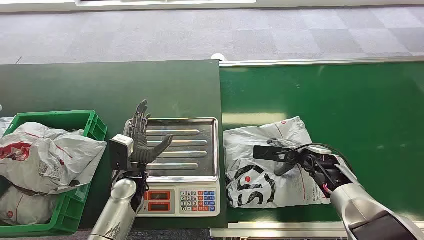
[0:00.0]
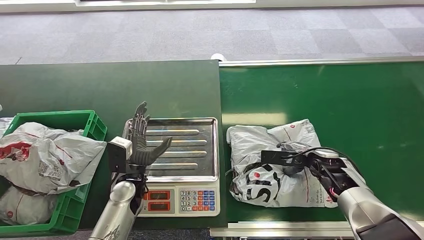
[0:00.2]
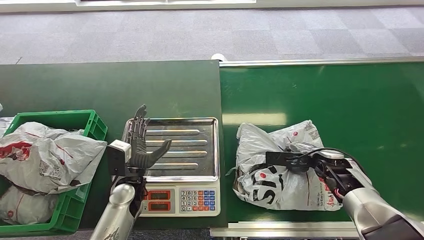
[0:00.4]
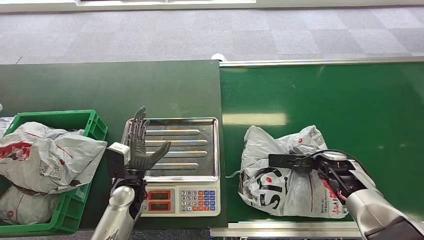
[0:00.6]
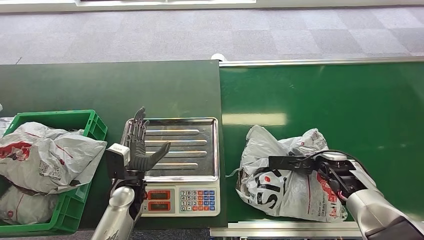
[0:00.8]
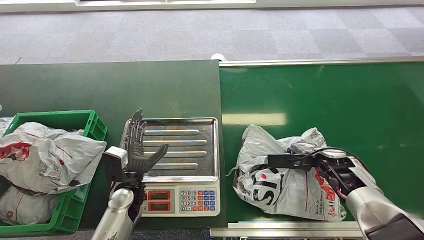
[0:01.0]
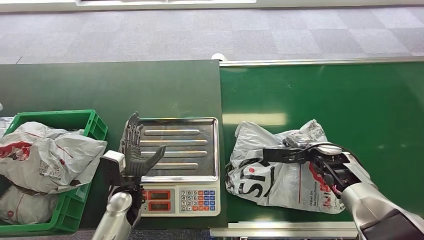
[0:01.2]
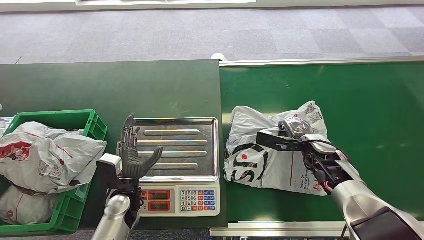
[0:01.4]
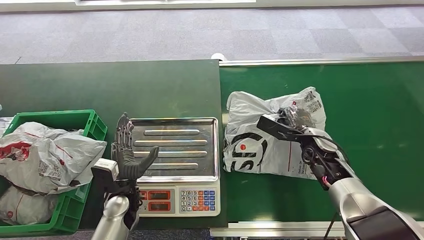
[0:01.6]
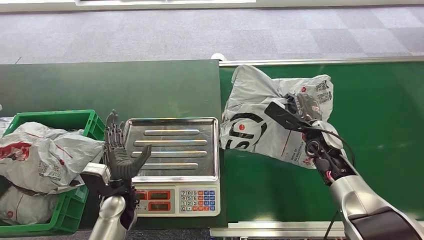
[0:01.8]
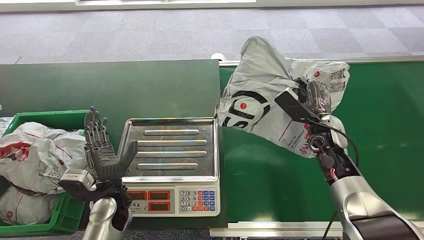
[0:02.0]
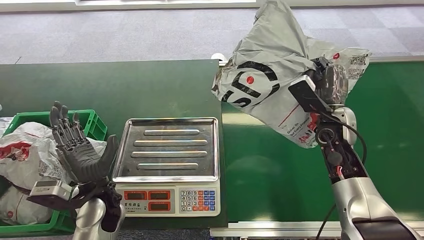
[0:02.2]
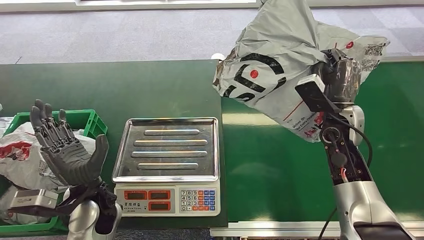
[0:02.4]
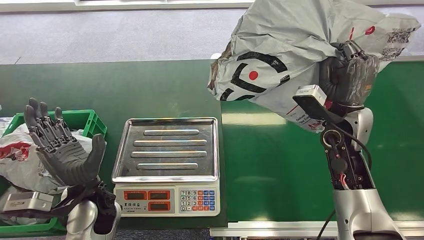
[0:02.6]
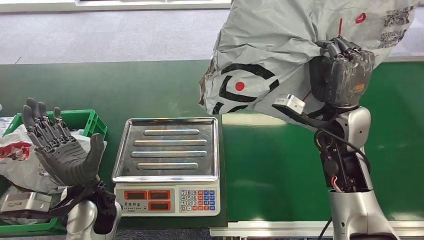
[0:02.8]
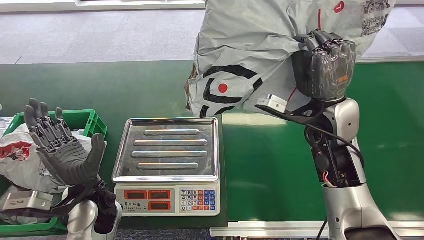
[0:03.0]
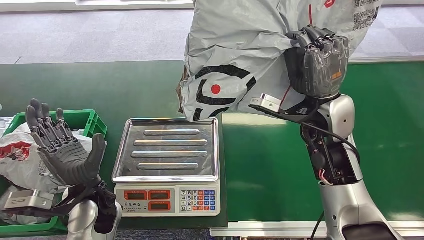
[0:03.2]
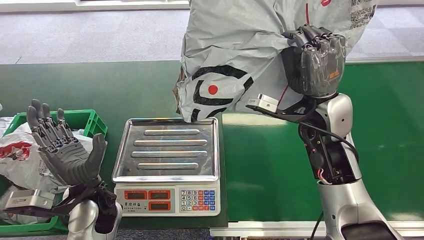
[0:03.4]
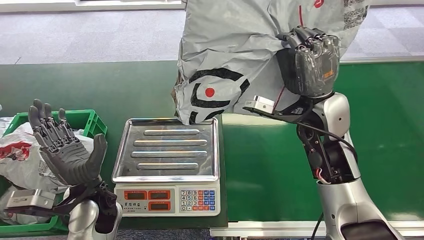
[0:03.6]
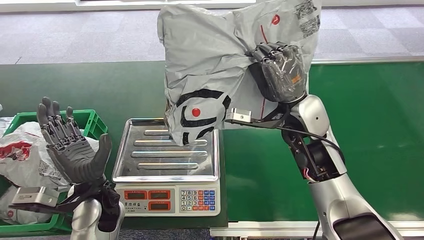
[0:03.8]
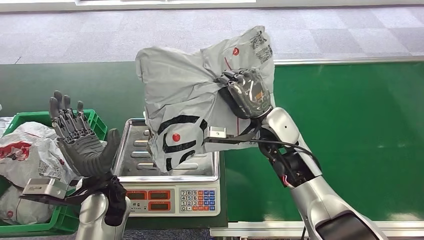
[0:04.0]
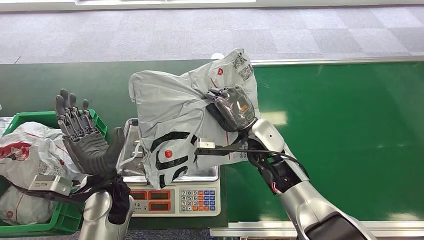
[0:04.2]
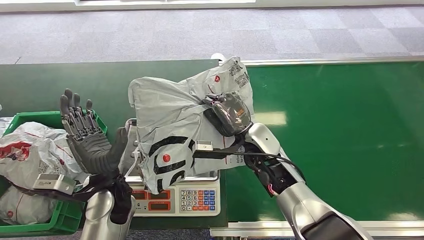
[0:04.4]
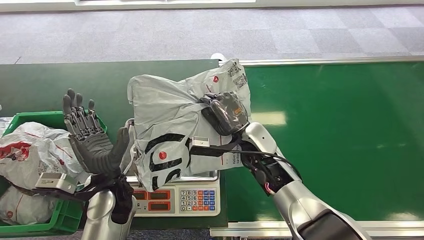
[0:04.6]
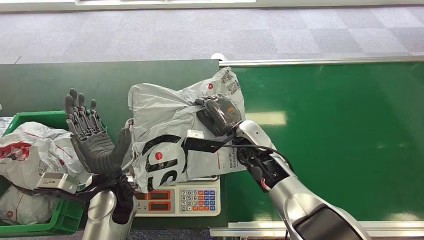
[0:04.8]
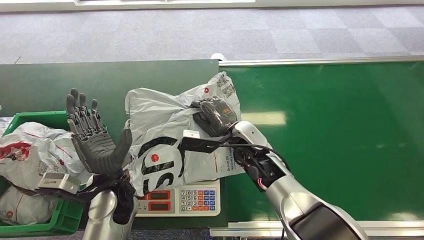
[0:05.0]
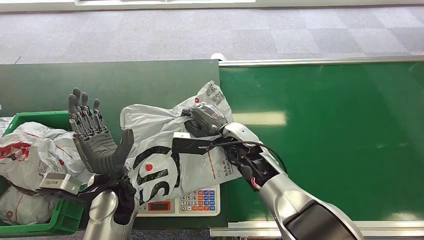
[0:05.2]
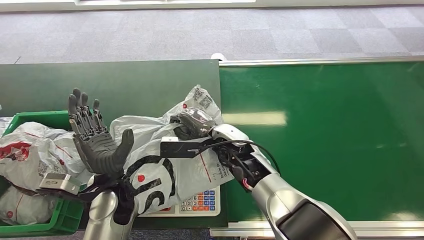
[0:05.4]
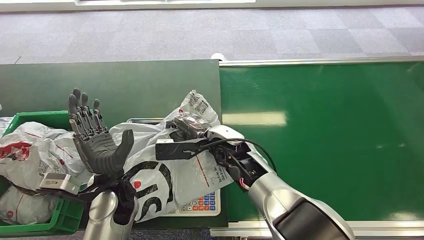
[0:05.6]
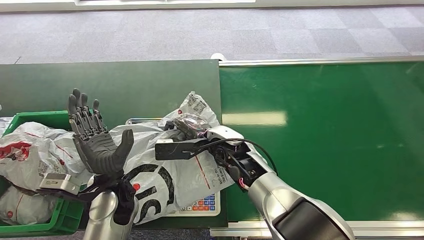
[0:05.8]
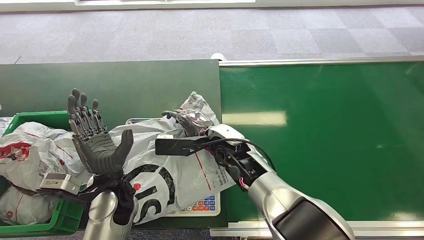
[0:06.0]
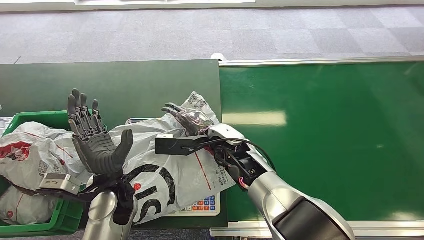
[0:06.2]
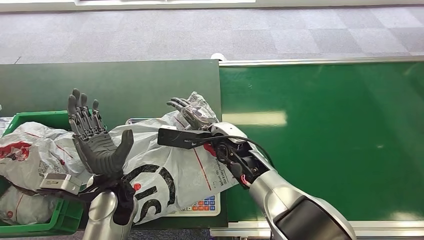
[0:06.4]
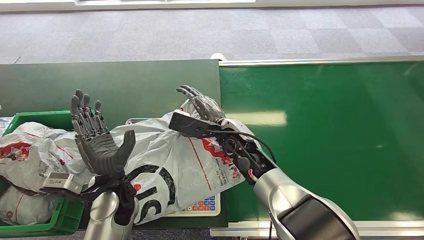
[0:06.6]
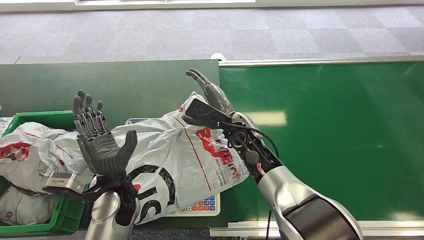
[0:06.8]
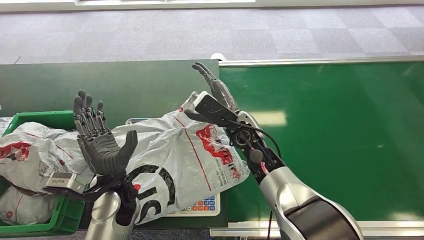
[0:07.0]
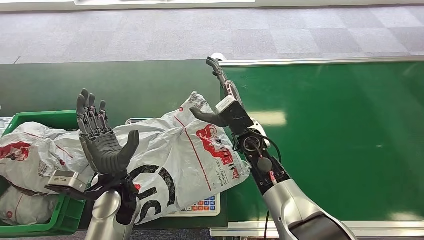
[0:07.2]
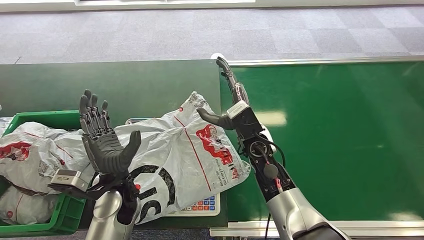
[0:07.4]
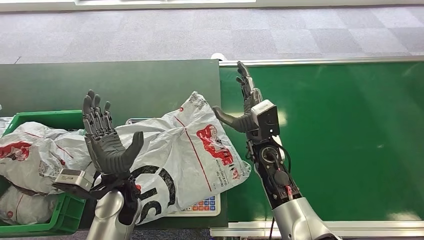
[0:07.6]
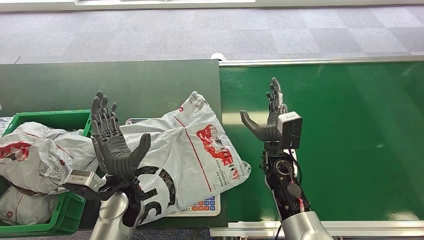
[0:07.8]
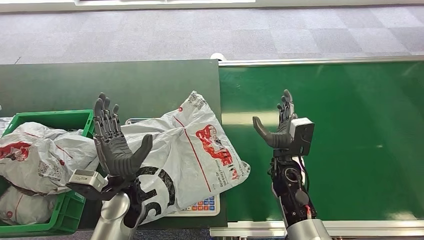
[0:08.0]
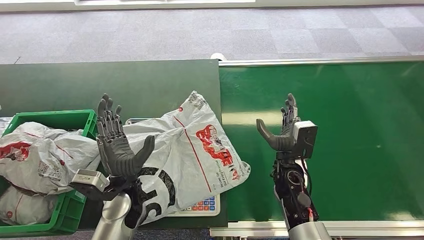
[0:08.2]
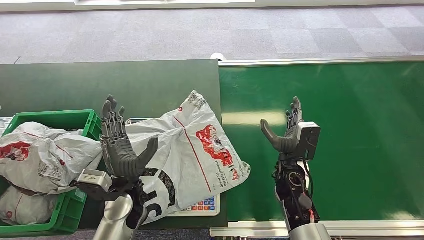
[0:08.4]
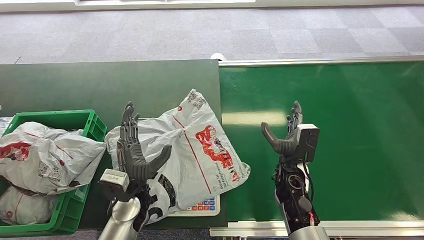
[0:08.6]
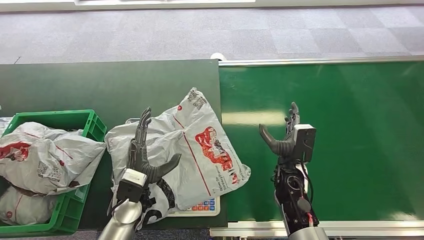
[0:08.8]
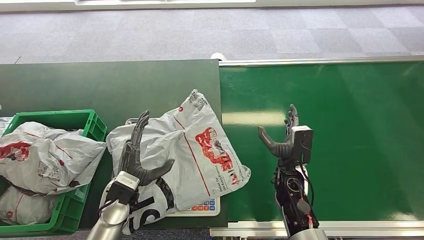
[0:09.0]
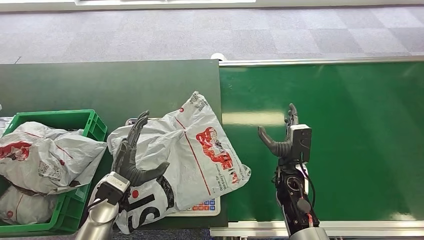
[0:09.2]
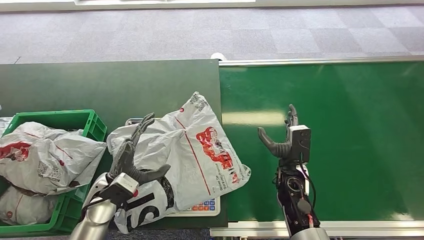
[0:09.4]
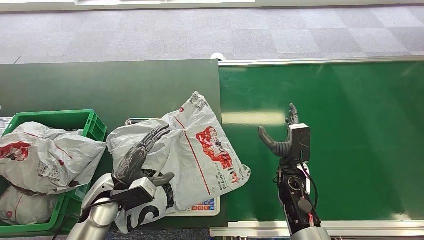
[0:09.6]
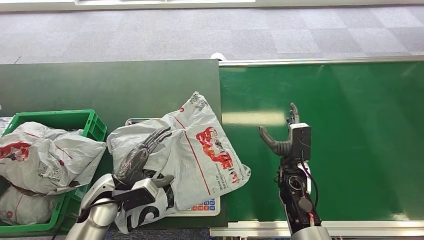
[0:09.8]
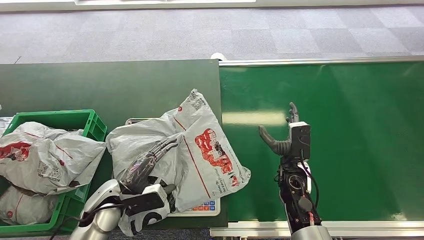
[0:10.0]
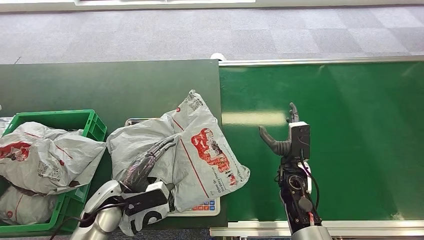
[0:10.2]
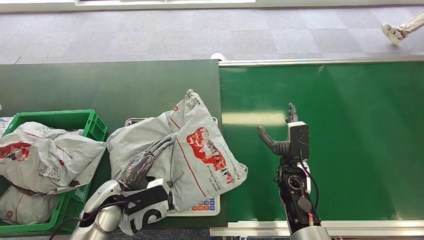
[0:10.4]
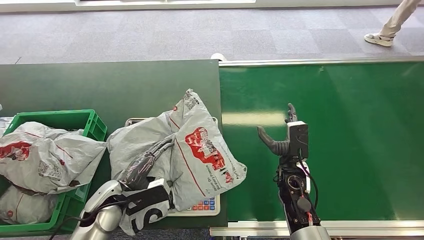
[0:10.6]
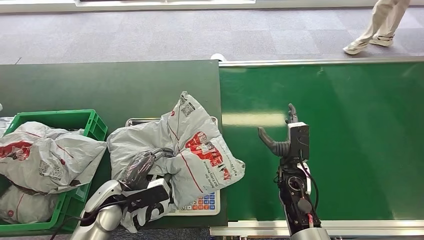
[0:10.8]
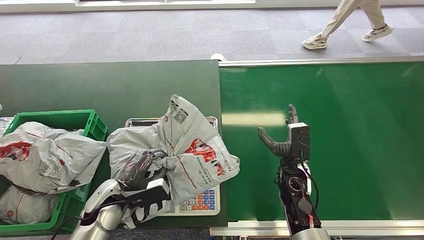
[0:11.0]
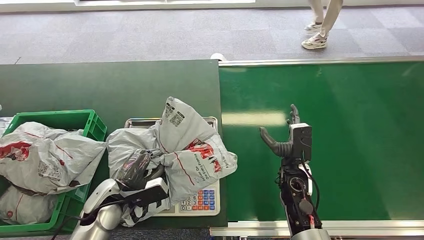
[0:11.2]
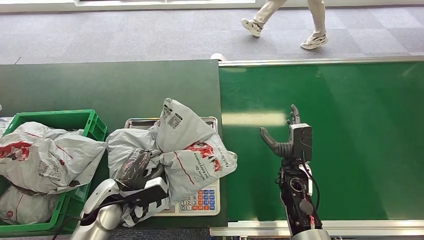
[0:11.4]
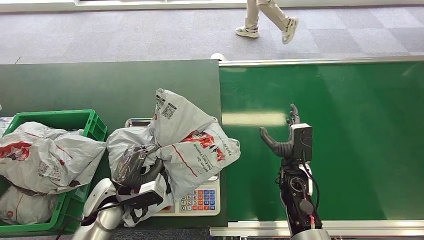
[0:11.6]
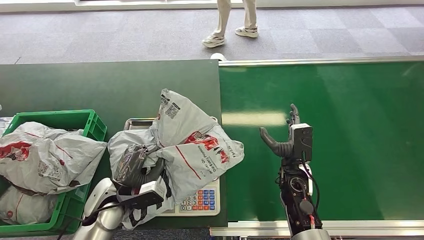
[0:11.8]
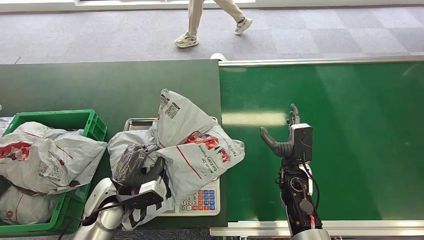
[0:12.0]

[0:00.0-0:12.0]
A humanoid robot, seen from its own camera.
Step, 0:00.0 to 0:02.6: Pick up the package from the conveyor belt.
Step, 0:04.4 to 0:06.4: Place the package onto the inbound machine.
0:06.0 to 0:07.6: The right hand goes some 5 cm to the right.
0:07.6 to 0:09.0: The left hand heads downward, covering roughly 5 cm, while the right hand travels downward, to the right and backward by approximately 10 cm.

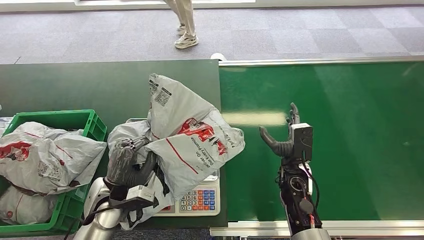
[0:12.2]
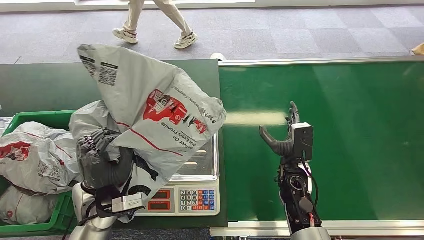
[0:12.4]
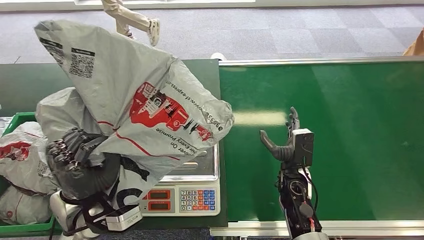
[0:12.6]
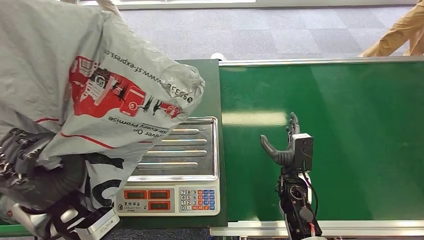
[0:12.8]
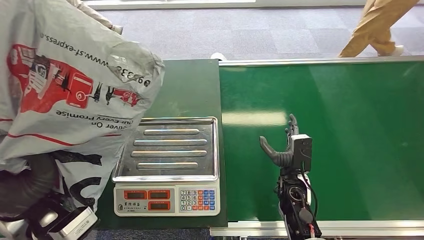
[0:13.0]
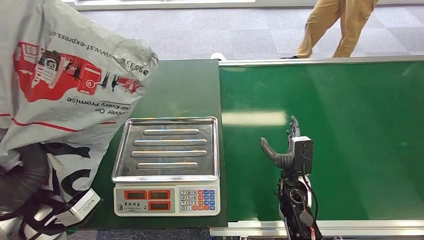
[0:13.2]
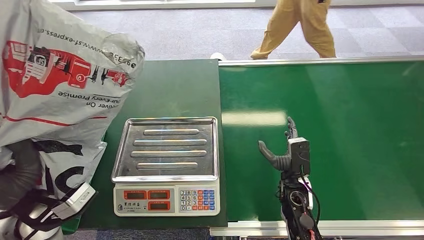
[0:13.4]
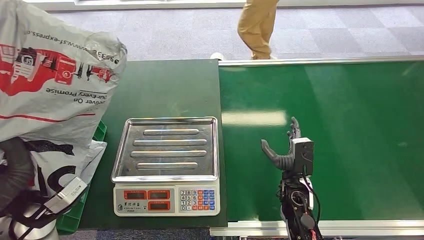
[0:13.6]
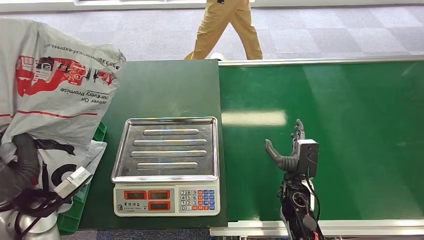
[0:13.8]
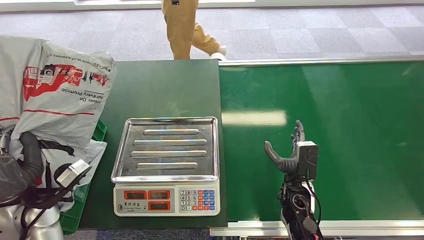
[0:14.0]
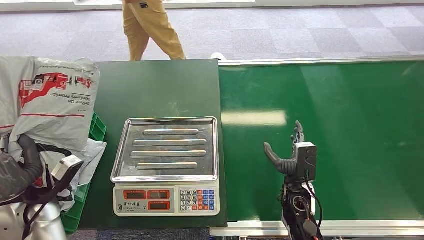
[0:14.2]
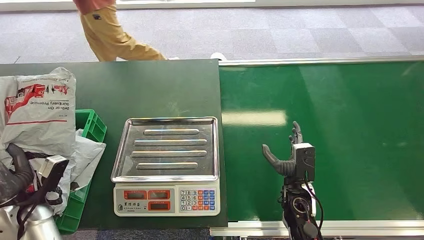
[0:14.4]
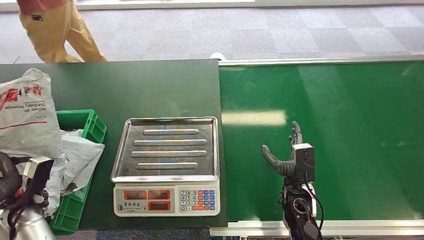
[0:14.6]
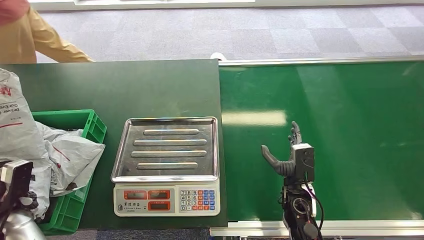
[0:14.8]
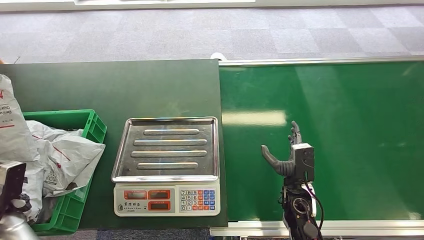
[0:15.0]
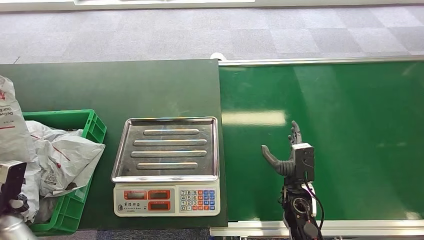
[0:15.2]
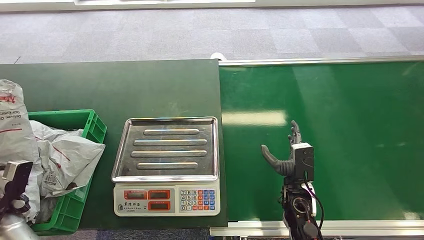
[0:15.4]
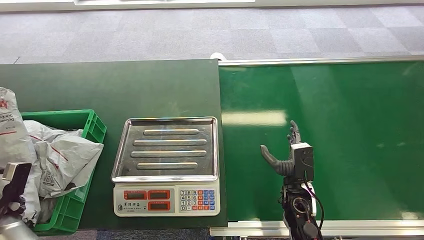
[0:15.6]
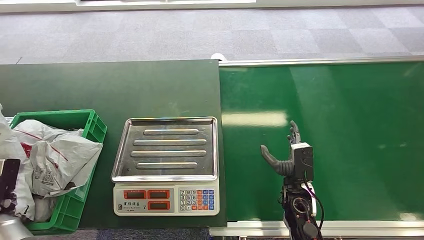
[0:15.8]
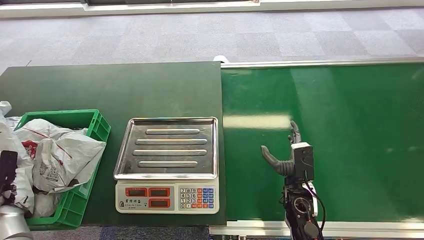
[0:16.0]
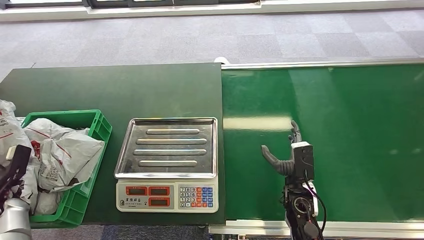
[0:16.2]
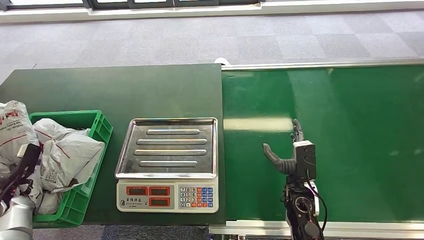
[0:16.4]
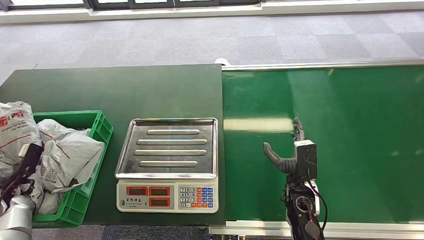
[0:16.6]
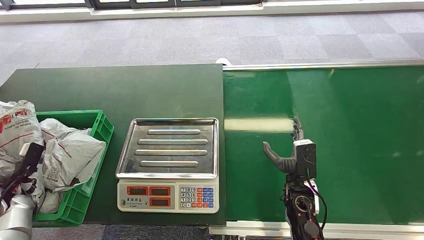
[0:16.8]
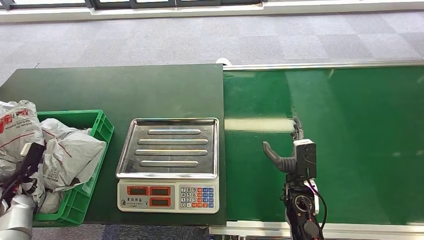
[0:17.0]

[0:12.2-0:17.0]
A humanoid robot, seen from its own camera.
Step, 0:13.8 to 0:17.0: Place the package into the parcel locker.
